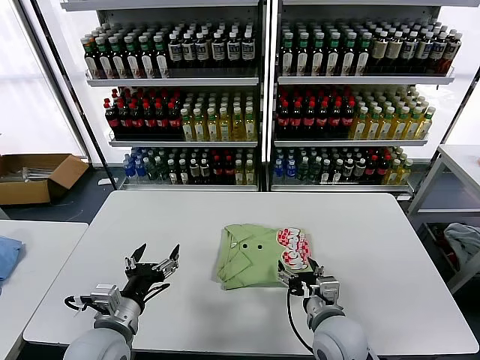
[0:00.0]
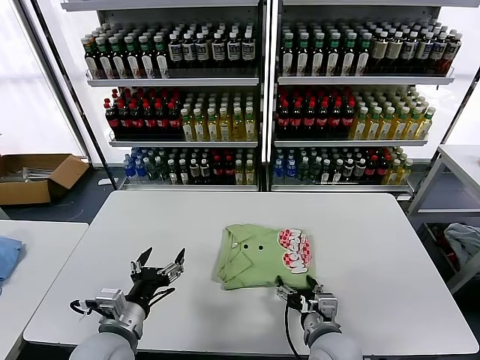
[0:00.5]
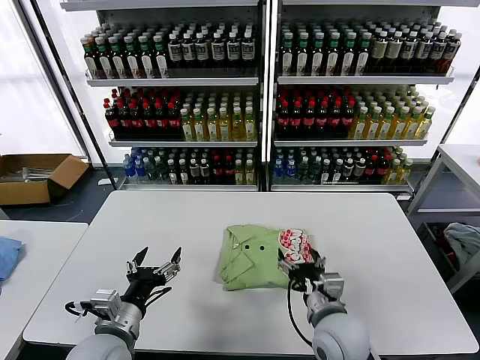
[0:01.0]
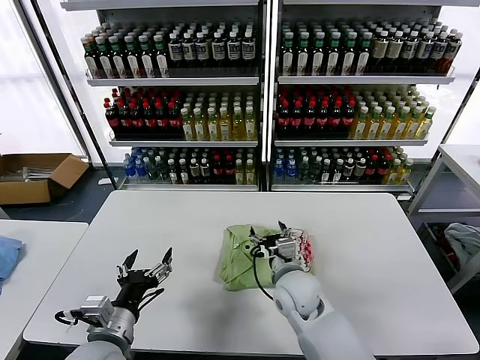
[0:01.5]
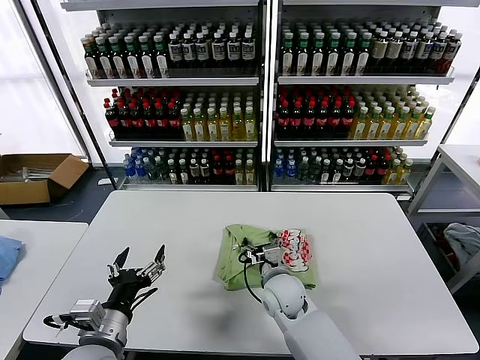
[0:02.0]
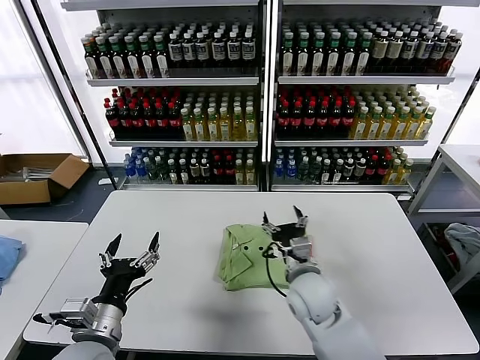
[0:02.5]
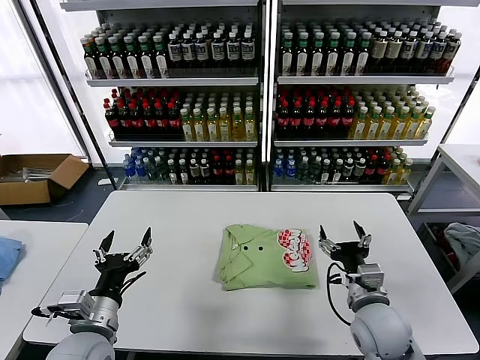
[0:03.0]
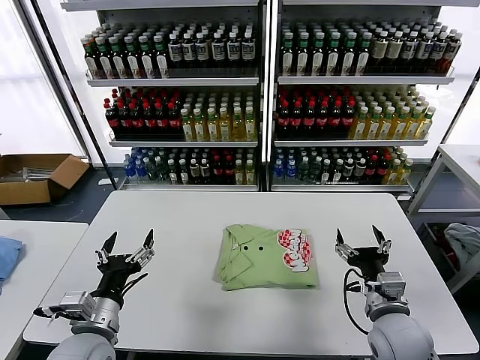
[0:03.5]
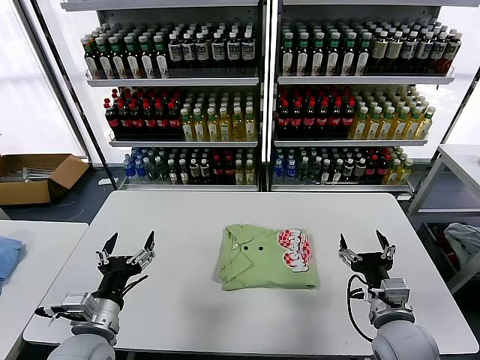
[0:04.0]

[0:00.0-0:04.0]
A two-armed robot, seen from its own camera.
Task of the whole recording: fold and organize the clothes.
Step, 0:00.0 to 0:02.0: Drag the clothes to the center of the table.
0:00.0 to 0:02.0: The right gripper shifts approximately 15 cm forward and to the left.
0:02.0 to 0:04.0: The right gripper goes approximately 25 cm to the right and backward.
